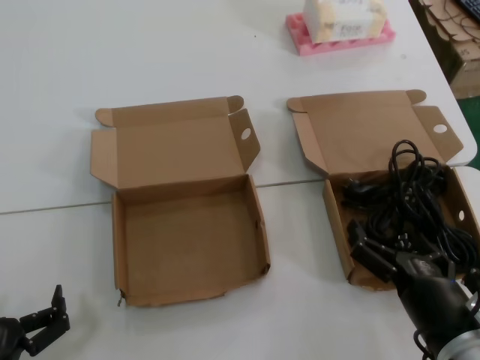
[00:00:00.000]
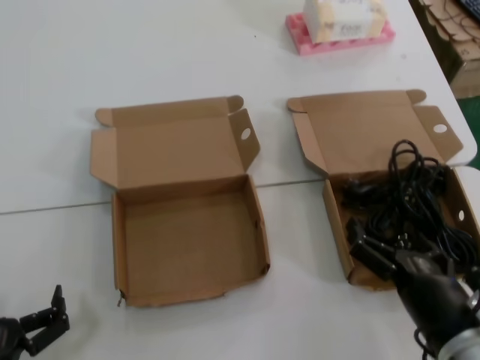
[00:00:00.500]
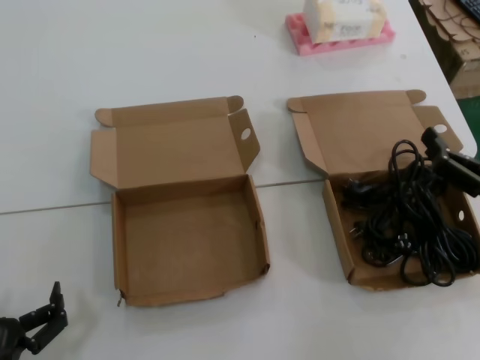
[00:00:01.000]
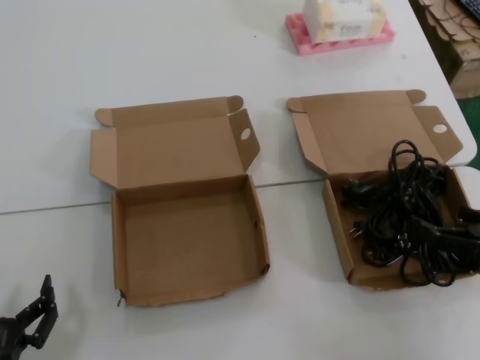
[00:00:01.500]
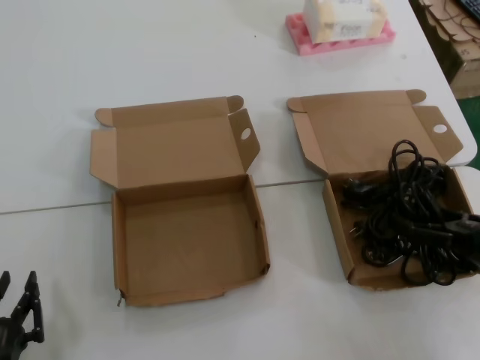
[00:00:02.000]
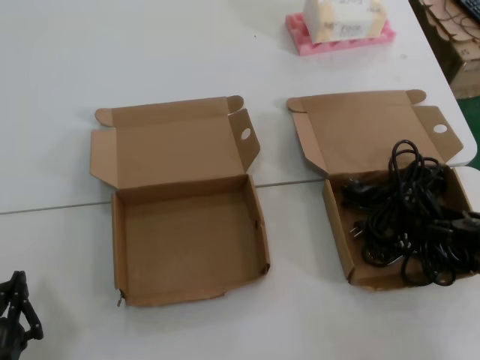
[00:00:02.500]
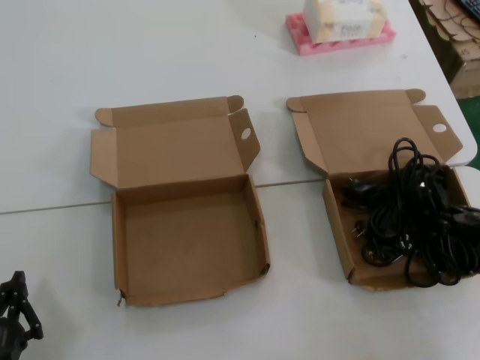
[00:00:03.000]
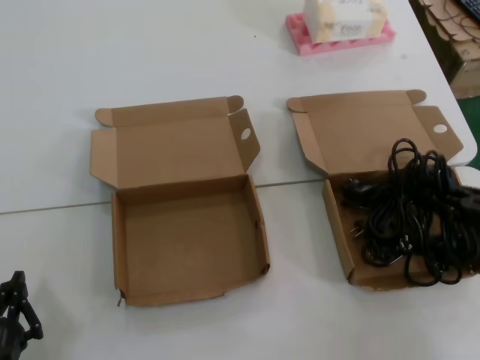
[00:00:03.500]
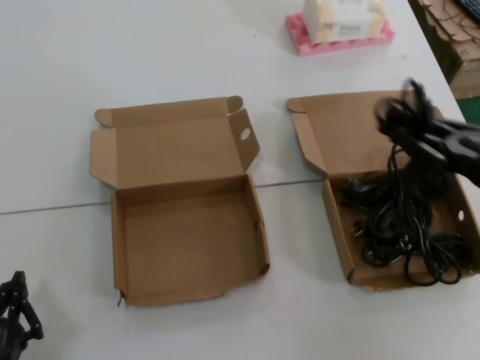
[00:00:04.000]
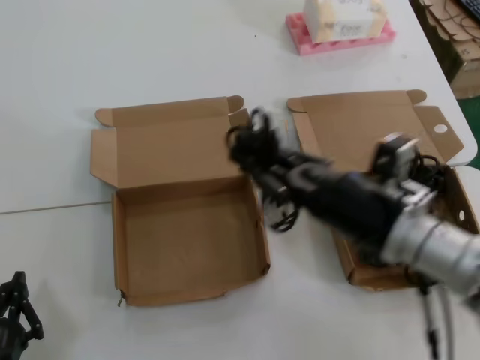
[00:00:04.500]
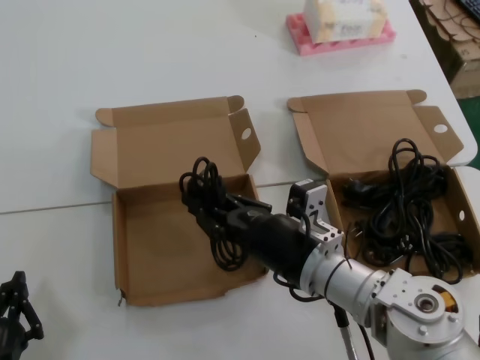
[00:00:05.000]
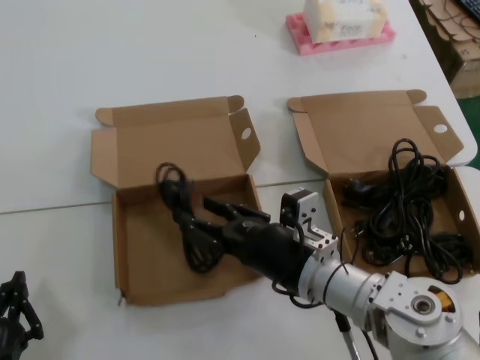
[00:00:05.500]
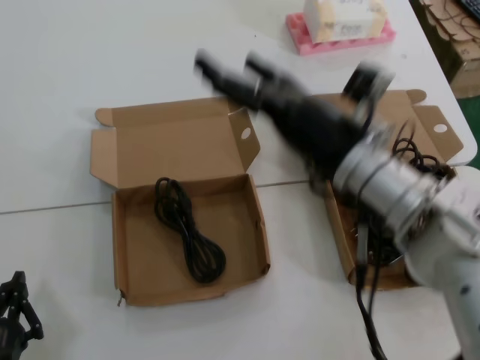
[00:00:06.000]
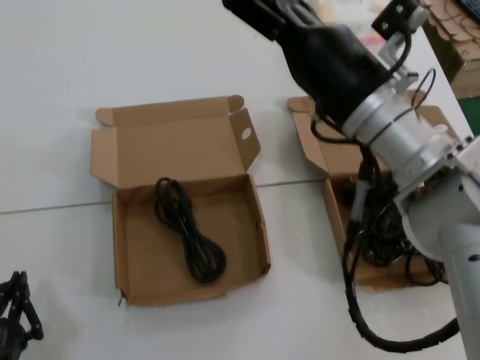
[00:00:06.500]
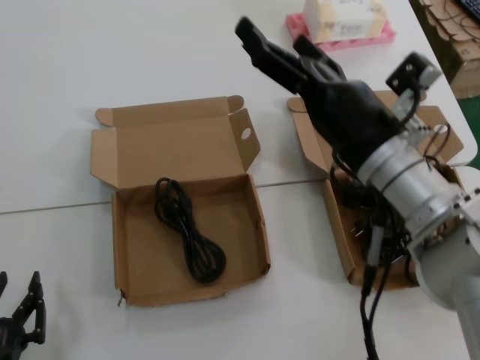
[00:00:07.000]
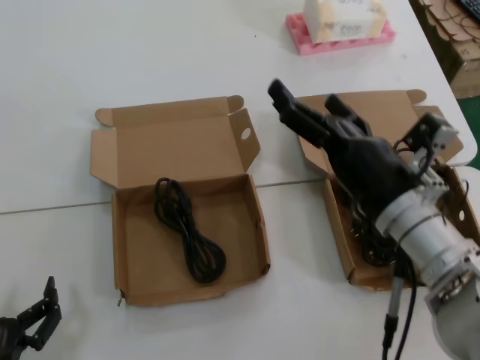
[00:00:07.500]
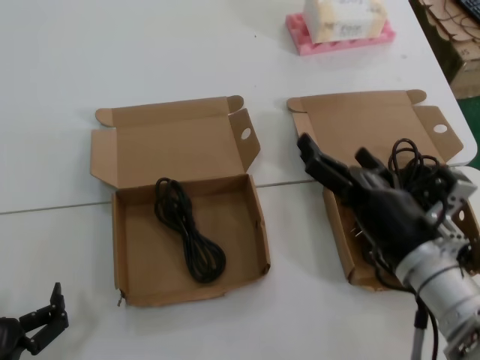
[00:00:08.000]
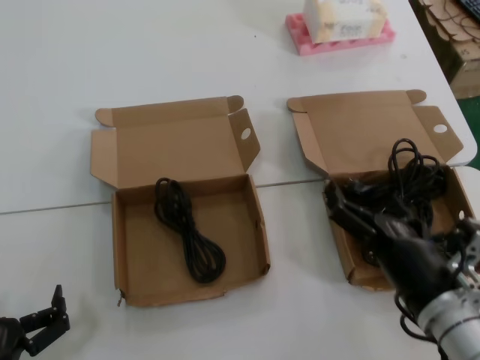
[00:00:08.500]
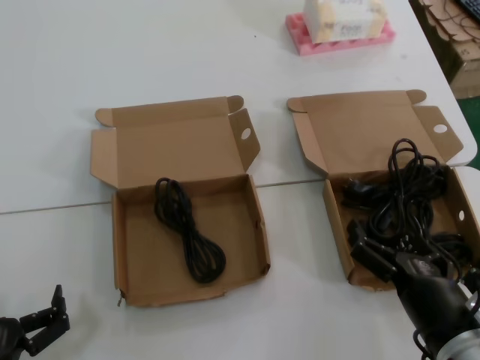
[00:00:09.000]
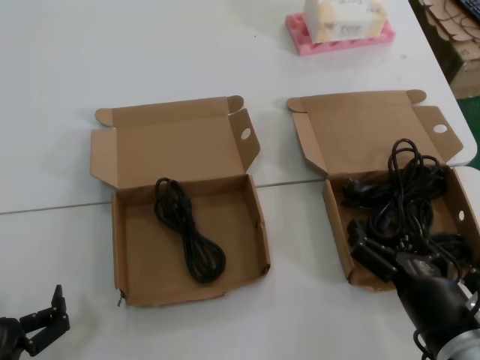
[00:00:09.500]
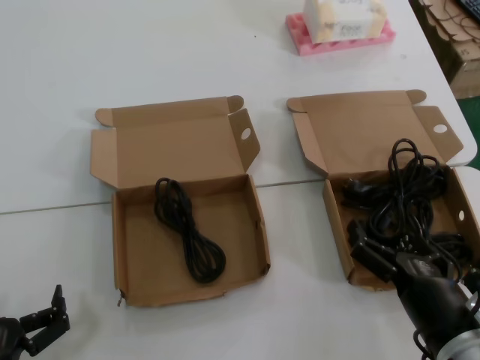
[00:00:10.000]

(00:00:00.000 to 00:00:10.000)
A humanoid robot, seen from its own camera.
Task of the whole recording: Pick up the power cord from the box containing it and place it in another box.
Step, 00:00:00.000 - 00:00:03.500: Grasp the data cable.
Step, 00:00:04.000 - 00:00:05.500: Place the data cable in the another box.
00:00:00.000 - 00:00:02.000: The right hand moves to the right and forward, roughly 20 cm.
00:00:02.000 - 00:00:04.000: The right hand travels upward by roughly 10 cm.
00:00:04.000 - 00:00:06.000: The right hand heads to the left, covering roughly 25 cm.
00:00:06.000 - 00:00:08.000: The right hand travels downward, backward and to the right by approximately 10 cm.
00:00:08.000 - 00:00:10.000: The right hand travels backward and downward by roughly 10 cm.

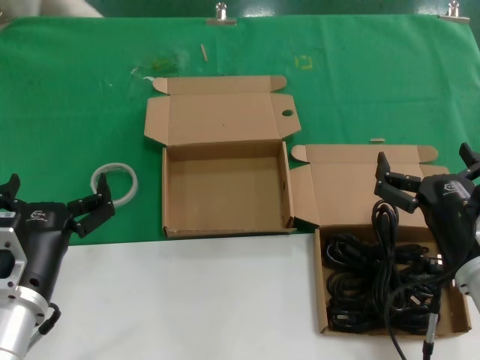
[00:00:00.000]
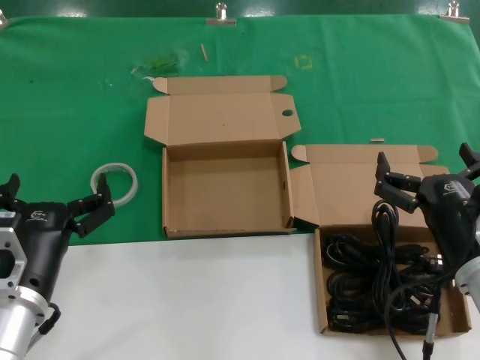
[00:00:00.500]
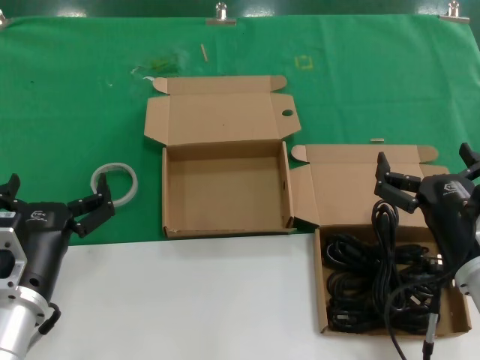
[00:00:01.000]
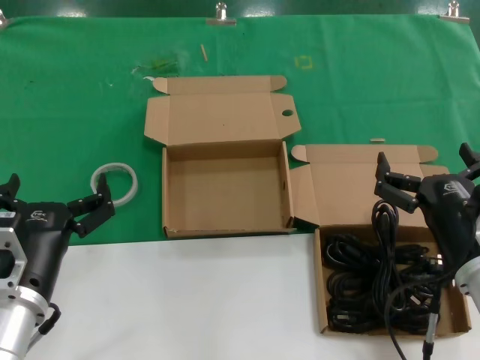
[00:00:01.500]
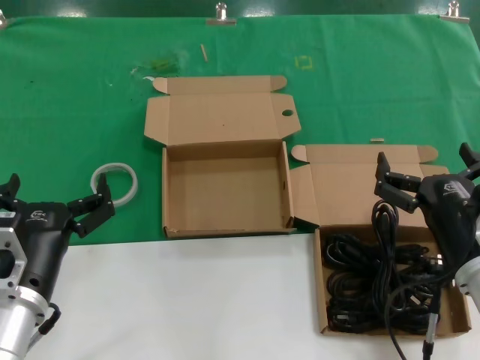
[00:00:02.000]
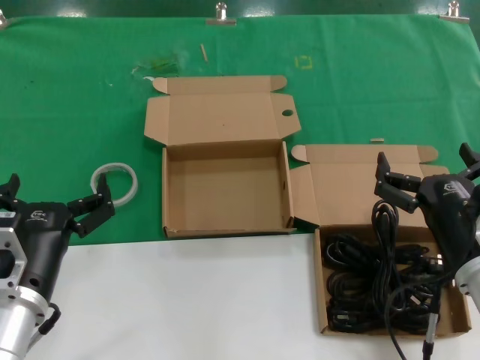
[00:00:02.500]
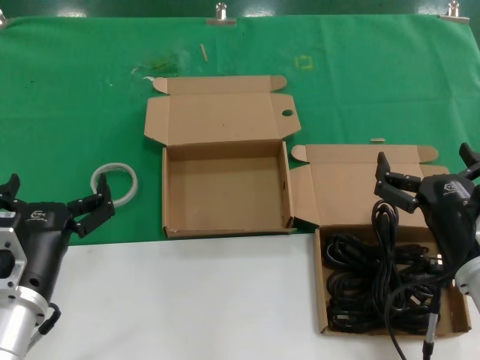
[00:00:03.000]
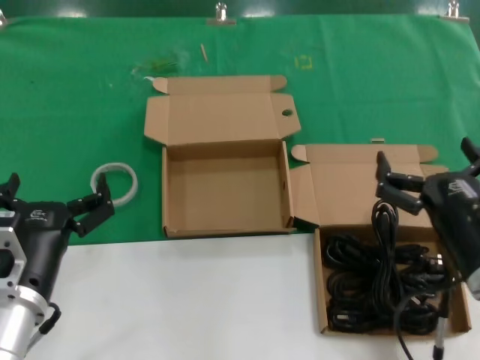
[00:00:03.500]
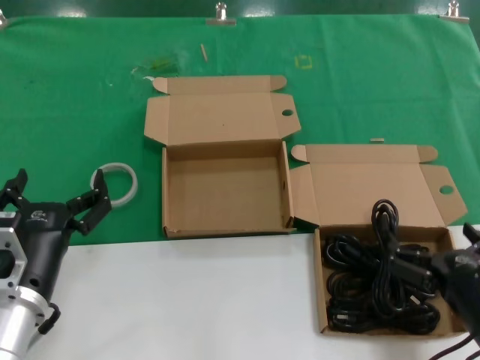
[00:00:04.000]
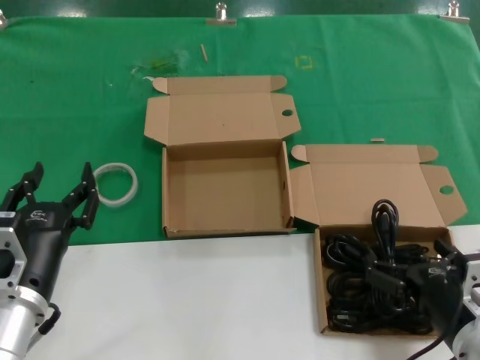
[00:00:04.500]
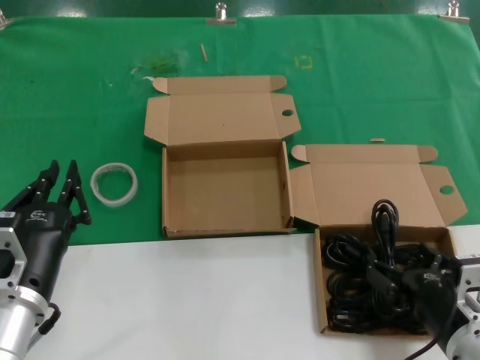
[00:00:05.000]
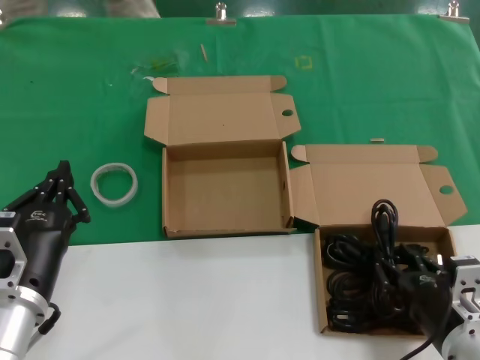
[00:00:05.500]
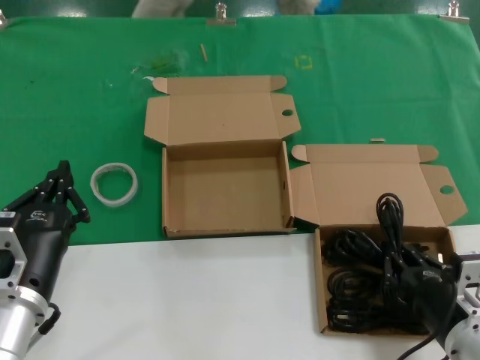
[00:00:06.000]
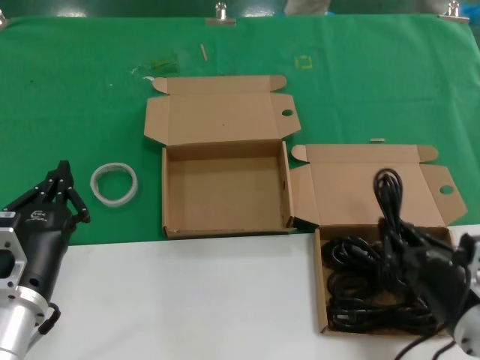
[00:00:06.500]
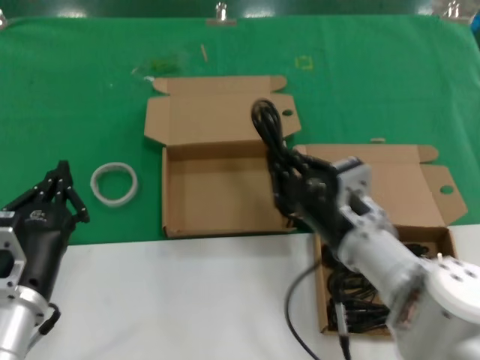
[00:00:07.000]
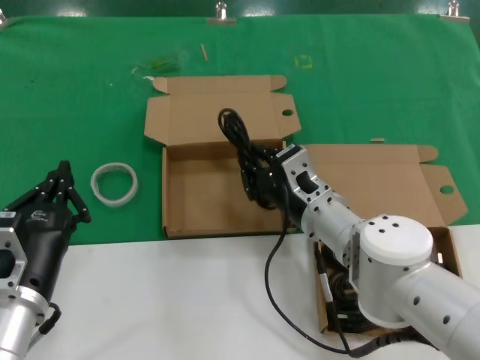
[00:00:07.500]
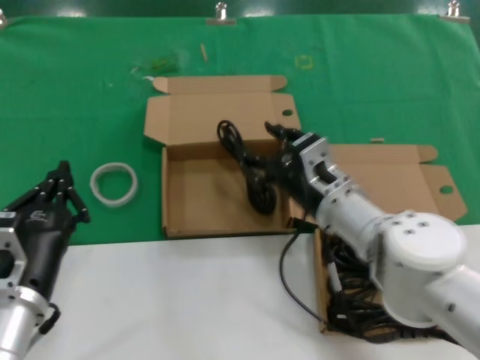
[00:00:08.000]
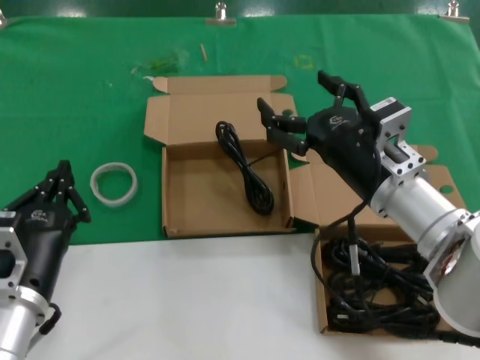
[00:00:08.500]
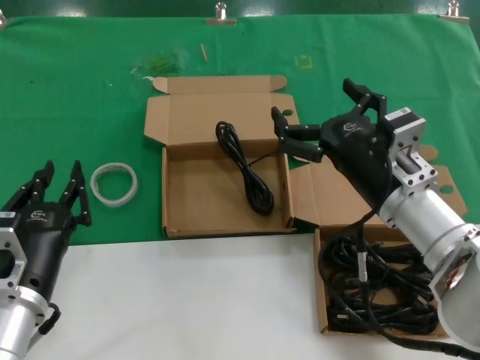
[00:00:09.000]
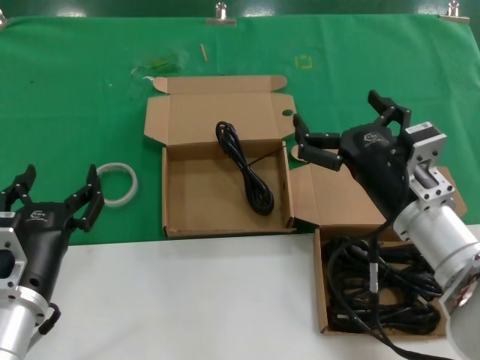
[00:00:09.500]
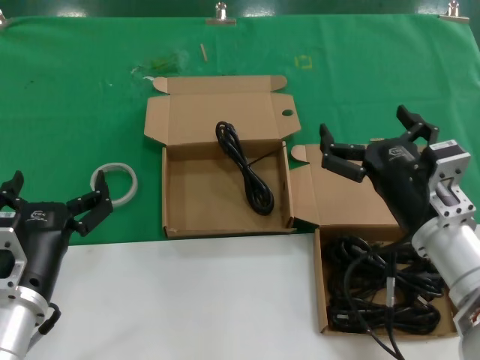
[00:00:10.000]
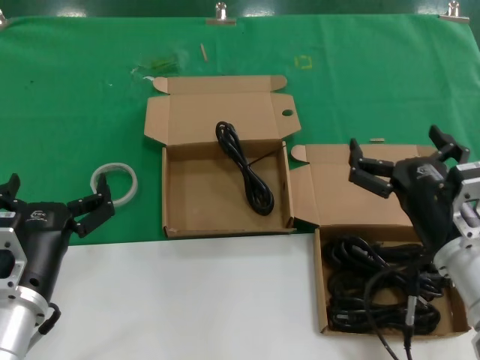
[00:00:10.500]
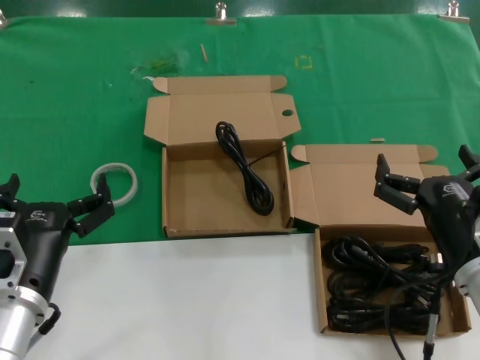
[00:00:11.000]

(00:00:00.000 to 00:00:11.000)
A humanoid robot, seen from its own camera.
Task of the whole recording: Pick up the power cord from the box containing it and place it in another box.
Step, 00:00:00.000 - 00:00:05.500: Grasp the data cable.
Step, 00:00:06.000 - 00:00:08.000: Place the data cable in the another box.
00:00:00.000 - 00:00:02.000: Both hands stay about where they are.
00:00:02.000 - 00:00:03.500: The hands move only a little.
00:00:03.500 - 00:00:05.500: The right hand is displaced downward by about 10 cm.
00:00:05.500 - 00:00:07.500: The right hand goes about 20 cm forward and to the left.
00:00:07.500 - 00:00:09.000: The right hand travels to the right, upward and backward by roughly 10 cm.
00:00:09.000 - 00:00:11.000: The right hand moves backward, to the right and downward, some 10 cm.
